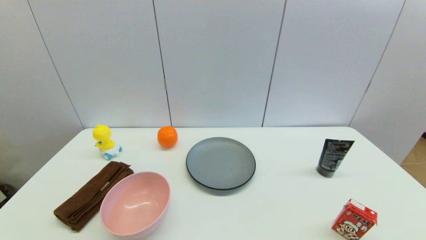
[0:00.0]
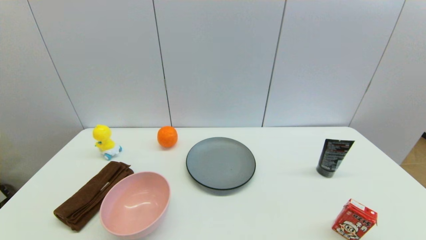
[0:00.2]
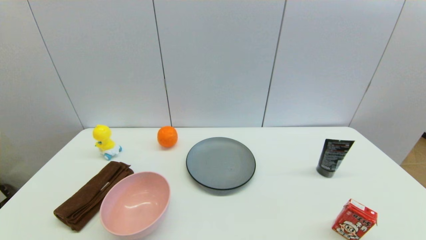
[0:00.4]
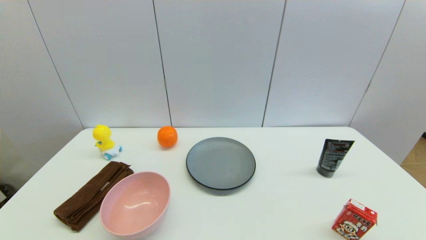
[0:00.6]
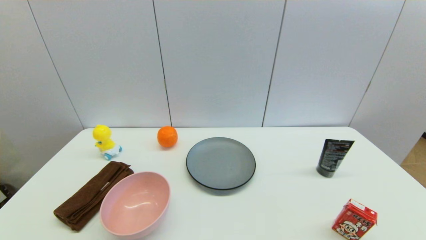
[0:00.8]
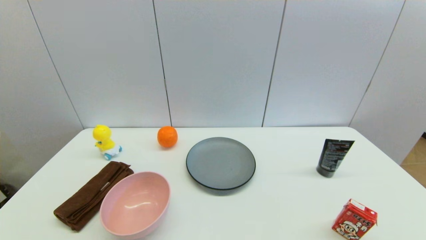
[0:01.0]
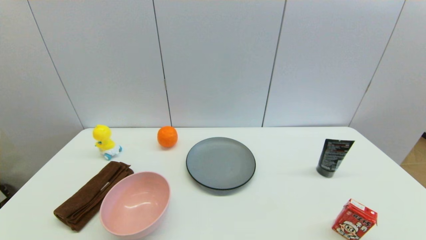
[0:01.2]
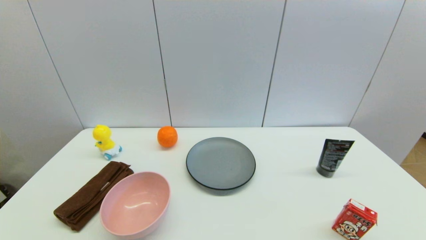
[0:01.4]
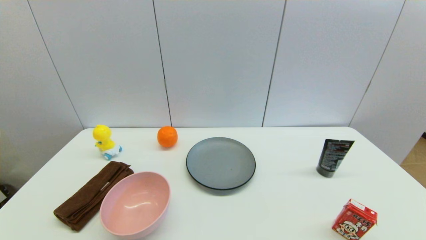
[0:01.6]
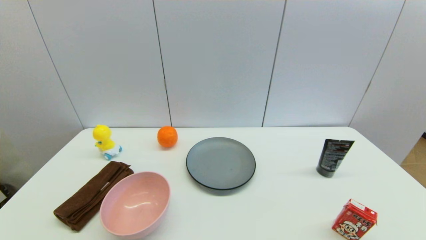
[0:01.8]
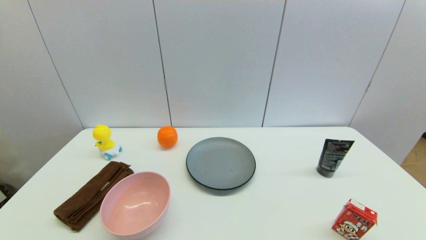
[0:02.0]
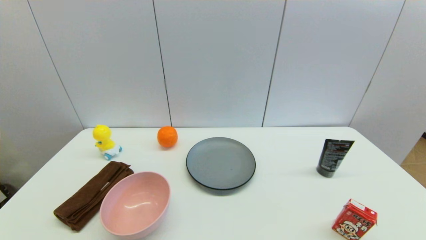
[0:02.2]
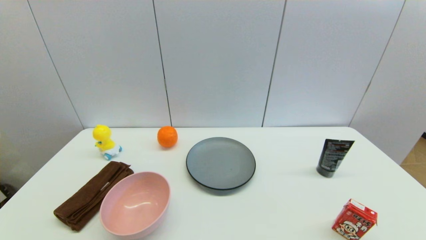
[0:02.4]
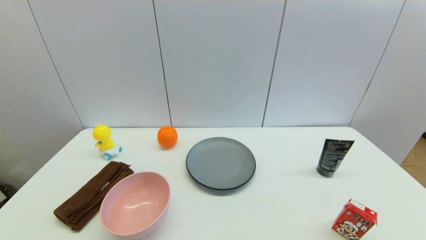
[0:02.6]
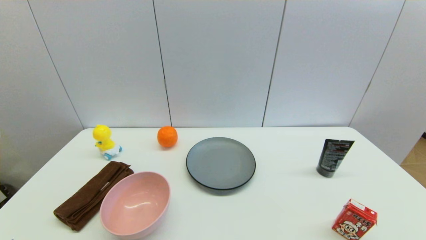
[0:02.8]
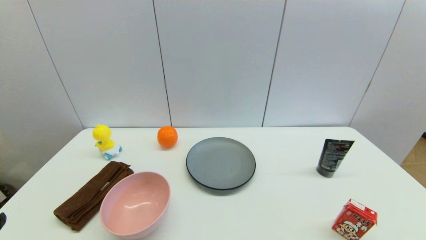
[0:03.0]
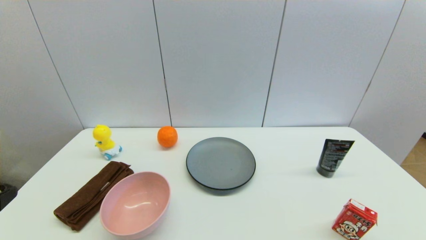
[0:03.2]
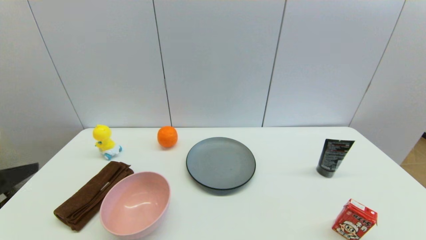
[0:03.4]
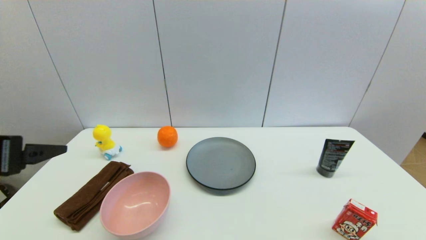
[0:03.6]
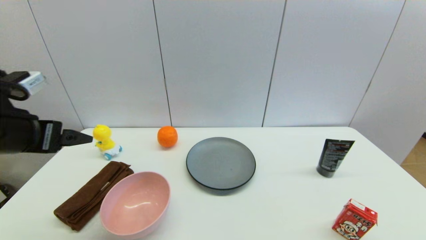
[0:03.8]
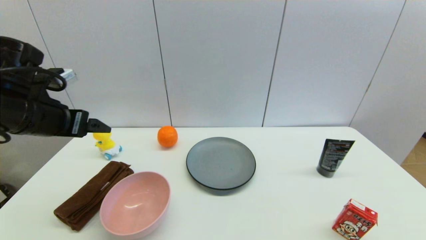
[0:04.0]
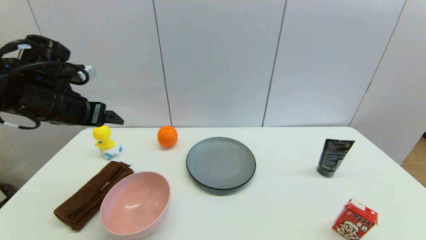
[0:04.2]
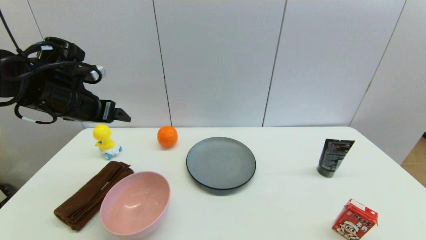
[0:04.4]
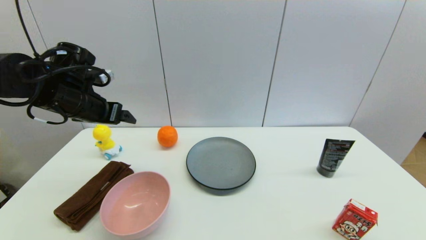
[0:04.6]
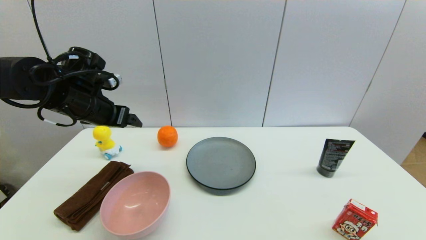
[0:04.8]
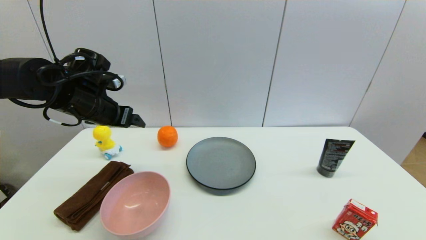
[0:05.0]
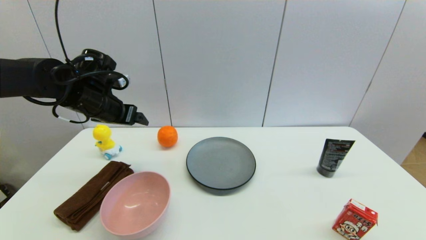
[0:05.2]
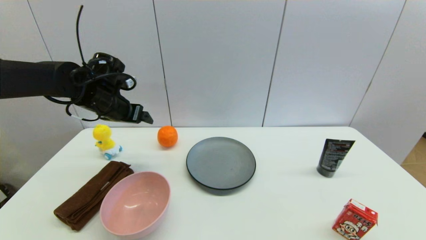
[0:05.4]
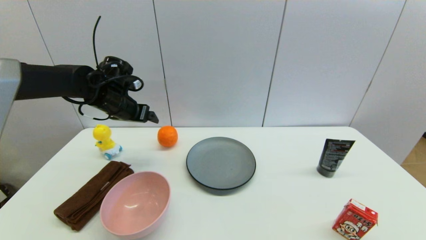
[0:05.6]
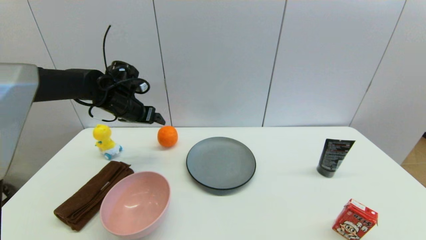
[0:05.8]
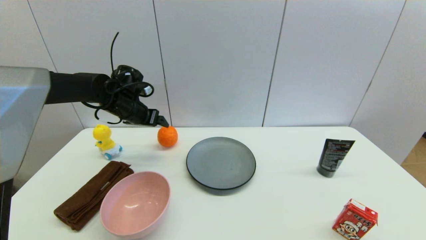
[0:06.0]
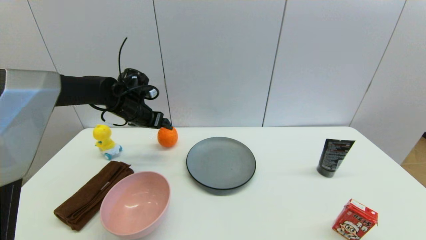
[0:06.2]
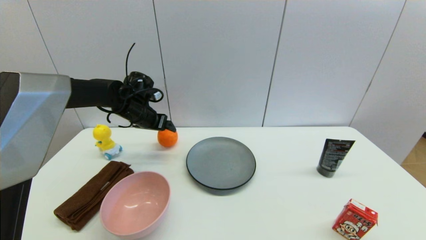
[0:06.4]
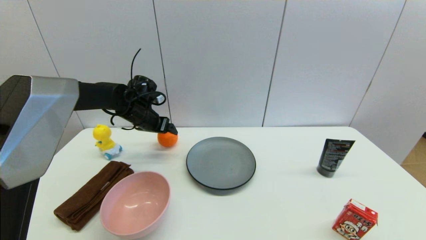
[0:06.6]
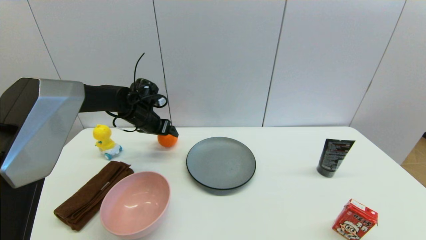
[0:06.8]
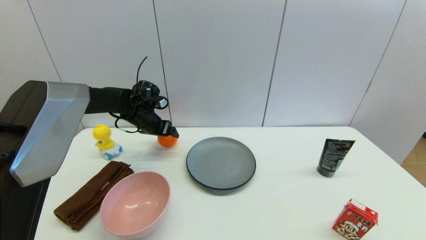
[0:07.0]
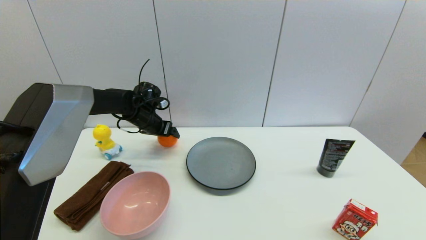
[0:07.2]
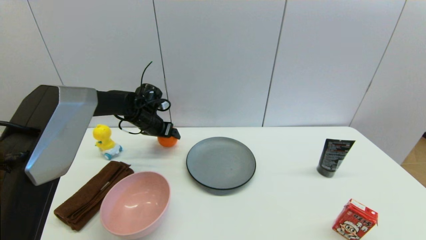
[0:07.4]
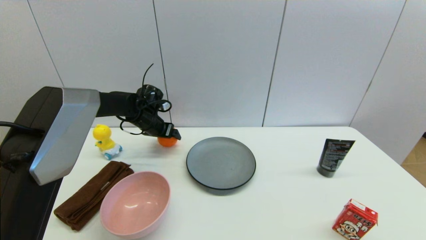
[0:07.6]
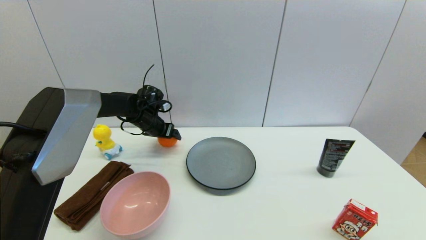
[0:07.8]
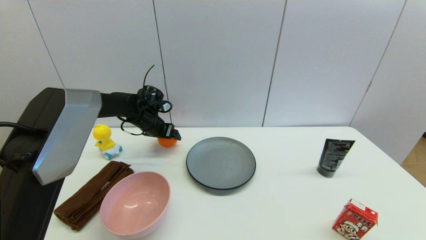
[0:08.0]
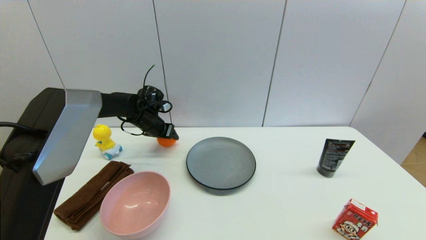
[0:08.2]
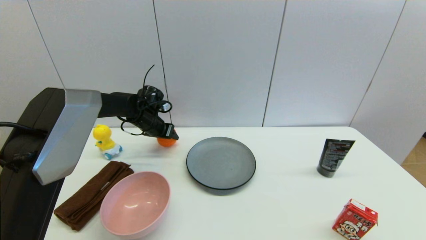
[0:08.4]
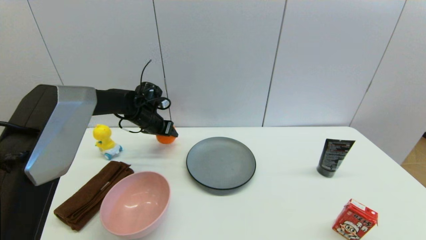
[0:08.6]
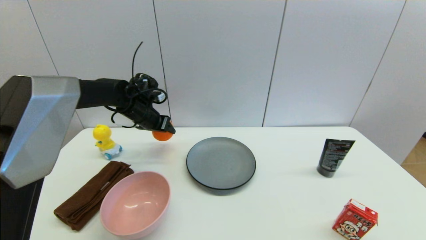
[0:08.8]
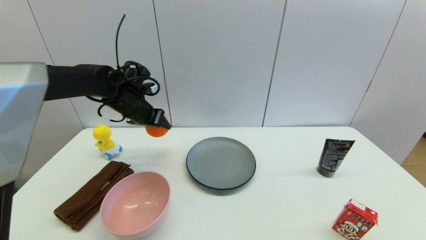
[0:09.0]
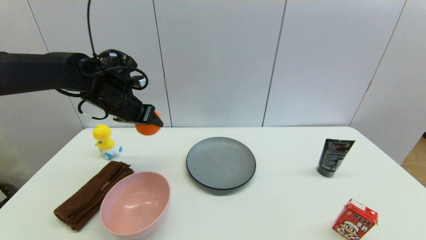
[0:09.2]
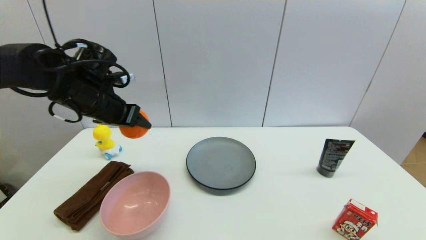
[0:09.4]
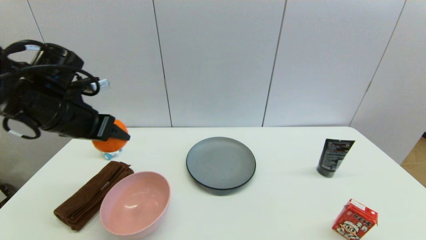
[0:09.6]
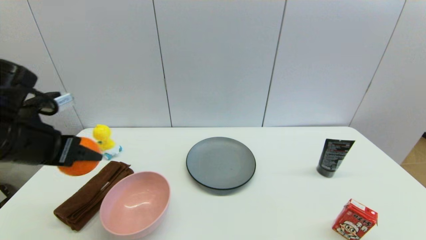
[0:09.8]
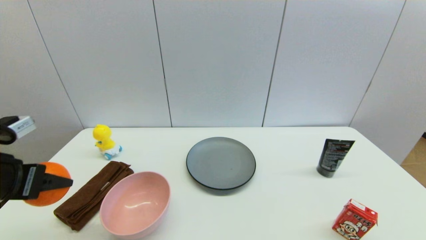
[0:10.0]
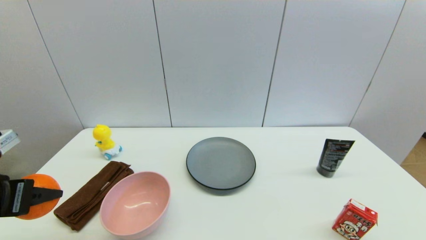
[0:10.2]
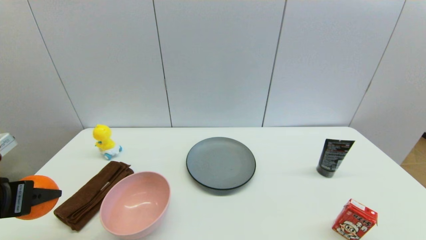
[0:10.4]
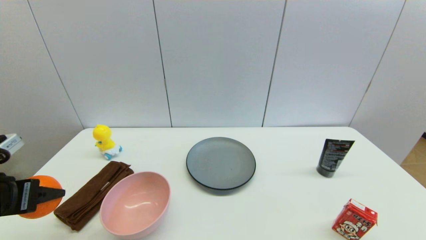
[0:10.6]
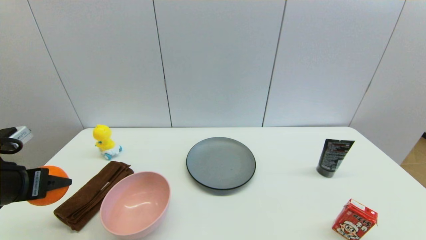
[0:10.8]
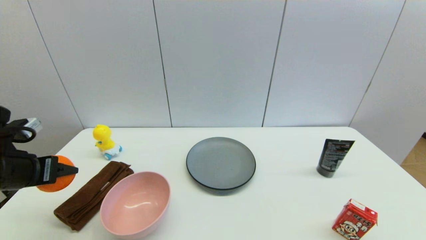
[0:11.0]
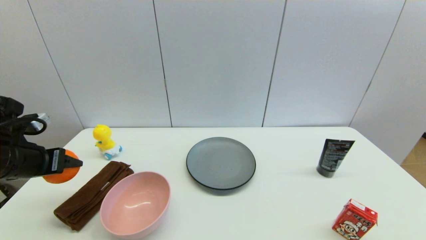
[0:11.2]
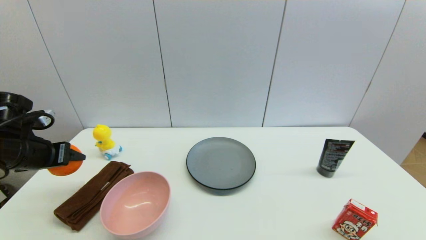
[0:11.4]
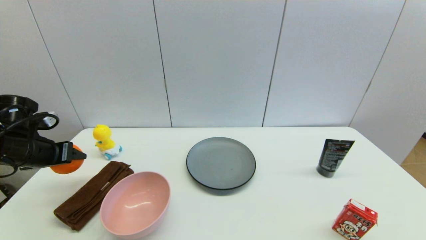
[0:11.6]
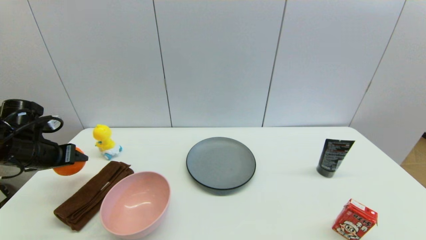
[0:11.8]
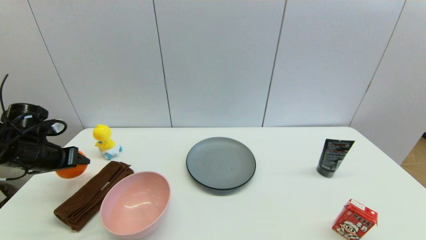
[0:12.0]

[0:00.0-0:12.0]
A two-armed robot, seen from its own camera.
Step, 3.0 to 8.4 s: Grasp the orange with left gripper.
0.0 to 1.6 s: Neither gripper changes place.
3.0 to 4.4 s: The left gripper shifts approximately 30 cm forward.
4.4 to 6.0 s: The left gripper is displaced forward, downward and to the right by about 15 cm.
6.0 to 7.6 s: The left gripper goes approximately 5 cm downward.
7.6 to 9.0 s: The left gripper goes about 10 cm upward and backward, and closes up.
9.0 to 10.4 s: The left gripper shifts roughly 30 cm backward and to the left.
10.4 to 12.0 s: The left gripper travels forward by roughly 15 cm.

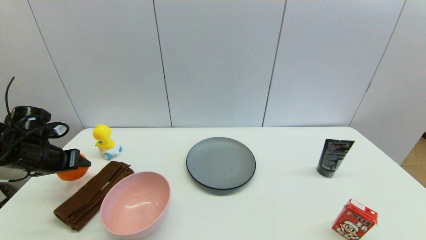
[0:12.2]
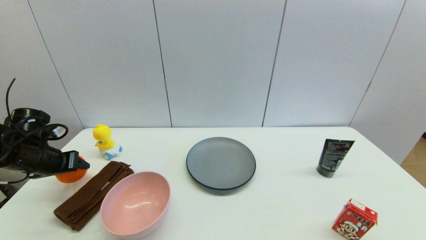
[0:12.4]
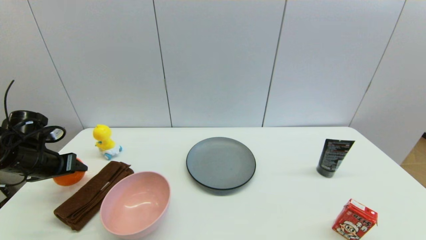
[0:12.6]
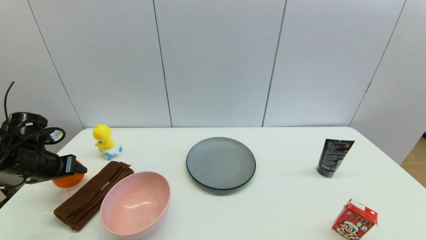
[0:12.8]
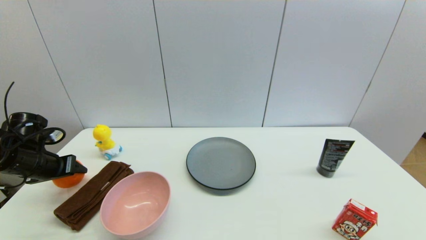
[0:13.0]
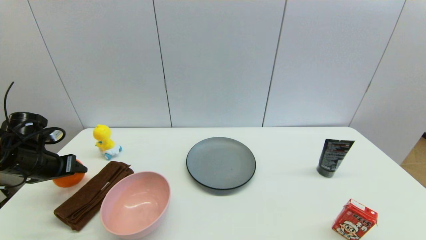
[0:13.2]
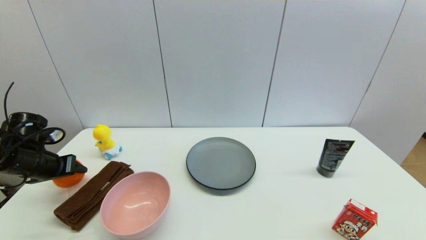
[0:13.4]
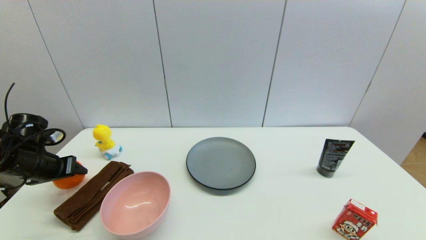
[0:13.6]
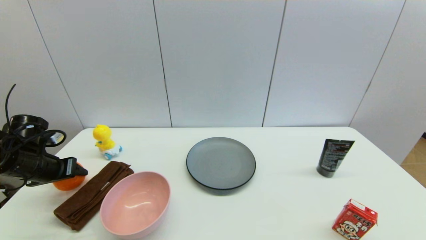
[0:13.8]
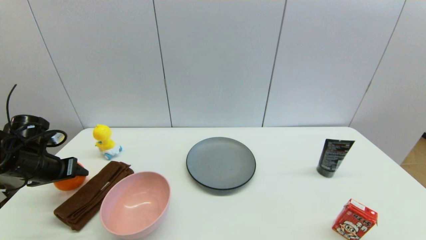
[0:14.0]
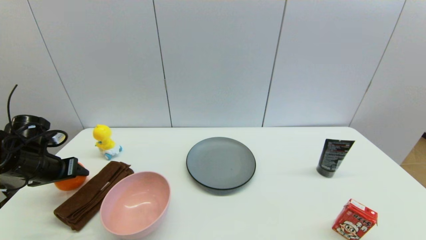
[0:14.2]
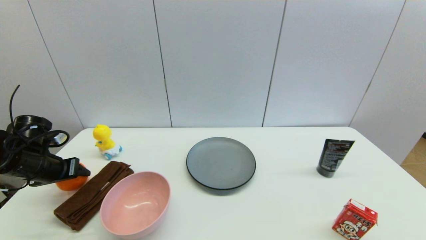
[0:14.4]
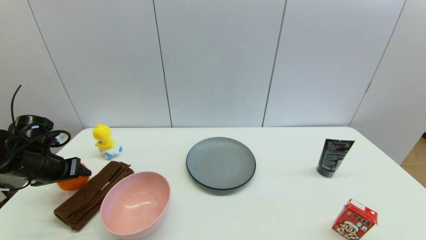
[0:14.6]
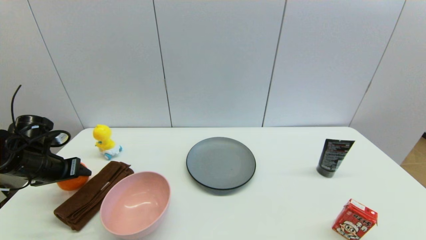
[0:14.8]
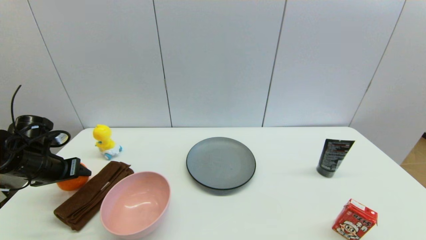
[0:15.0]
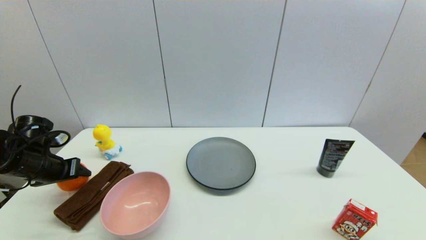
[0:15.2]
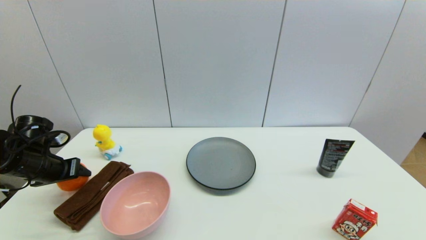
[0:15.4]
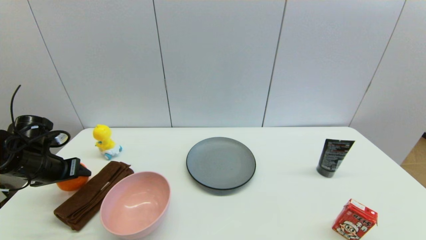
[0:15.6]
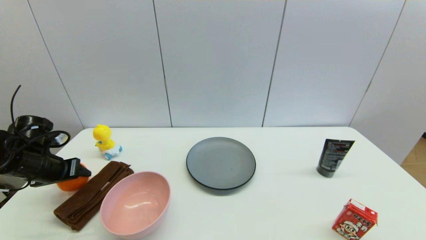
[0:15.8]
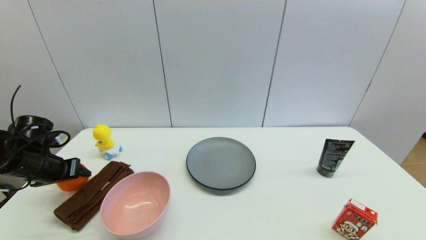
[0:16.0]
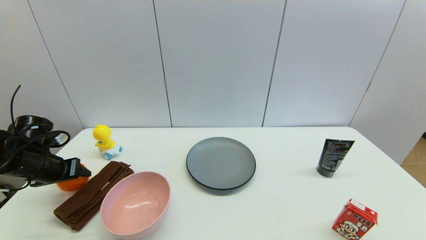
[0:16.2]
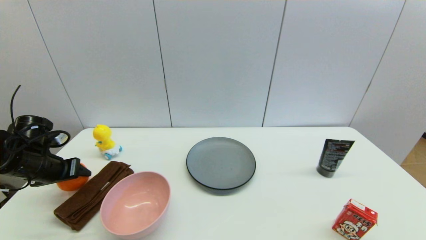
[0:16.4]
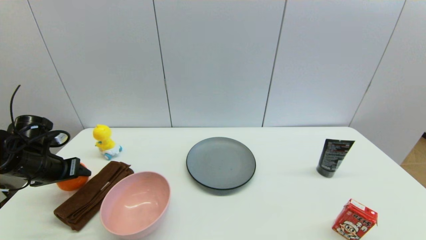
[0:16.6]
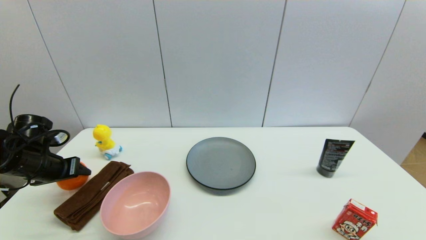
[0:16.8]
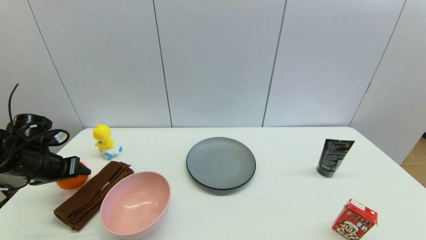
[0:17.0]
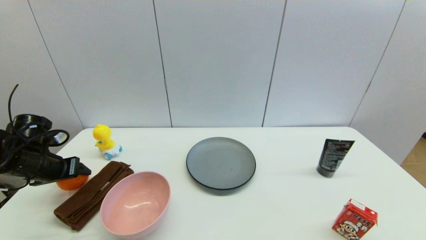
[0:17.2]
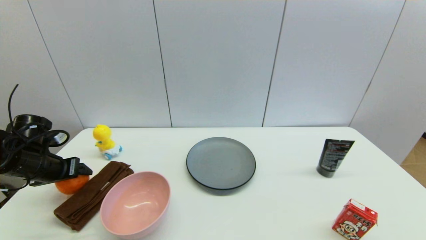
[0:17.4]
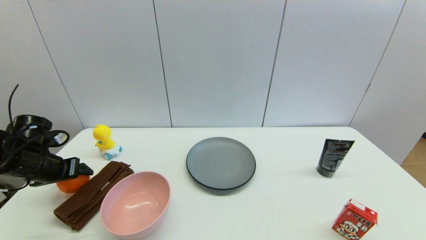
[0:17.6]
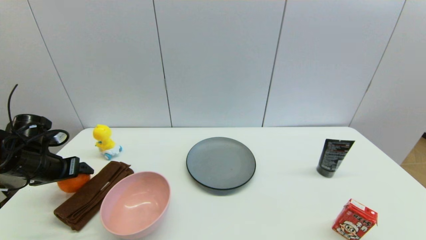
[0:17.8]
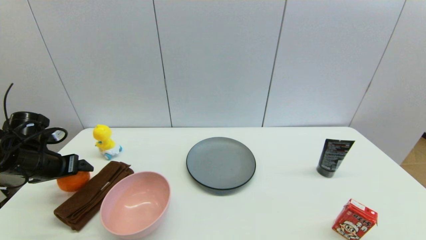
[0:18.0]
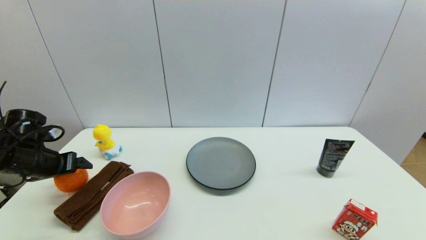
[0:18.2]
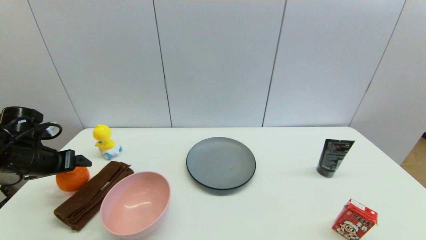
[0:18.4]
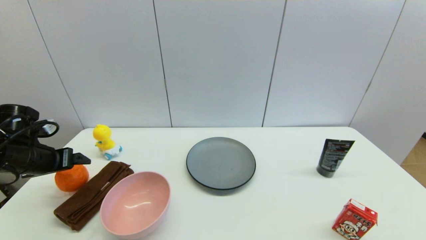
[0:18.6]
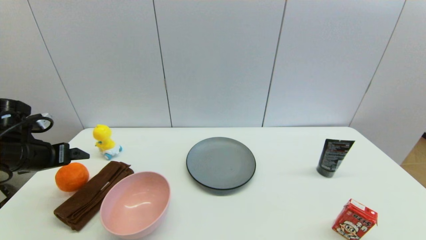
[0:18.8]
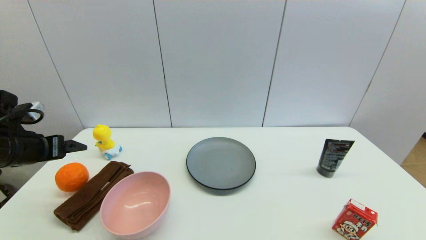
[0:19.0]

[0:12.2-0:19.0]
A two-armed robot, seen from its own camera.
Step, 12.2 to 18.0 s: Place the orange on the table with left gripper.
12.2 to 13.6 s: The grippers make only small movements.
13.6 to 16.2 s: Both grippers stay about where they are.
16.2 to 17.6 s: The left gripper opens up.
17.6 to 19.0 s: The left gripper moves upward, approximately 5 cm.
